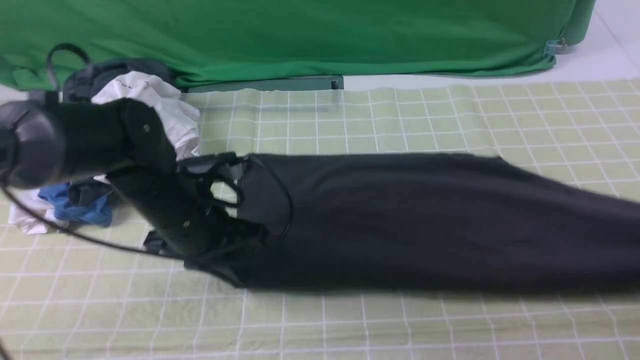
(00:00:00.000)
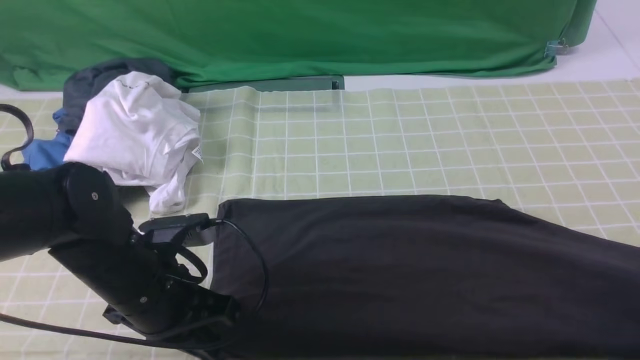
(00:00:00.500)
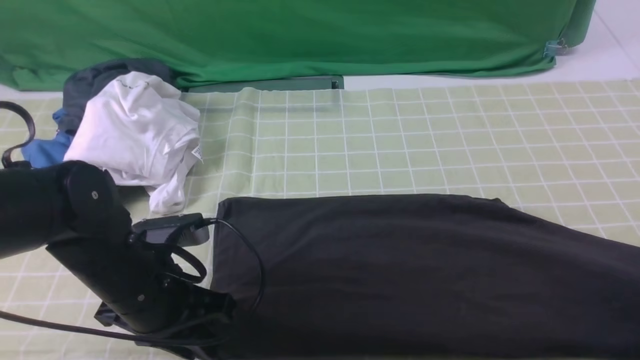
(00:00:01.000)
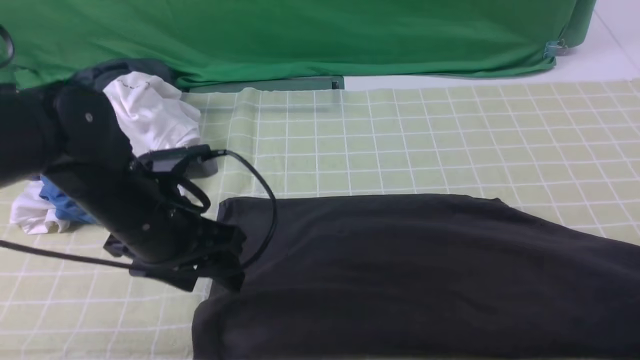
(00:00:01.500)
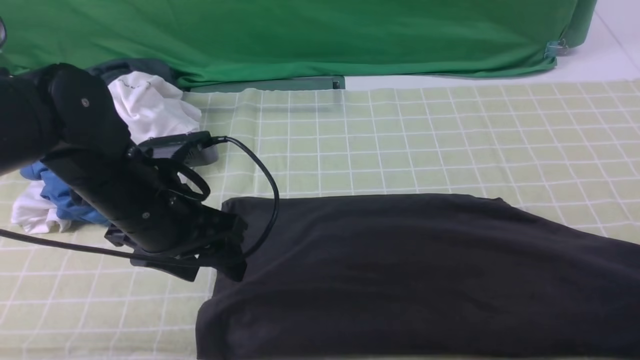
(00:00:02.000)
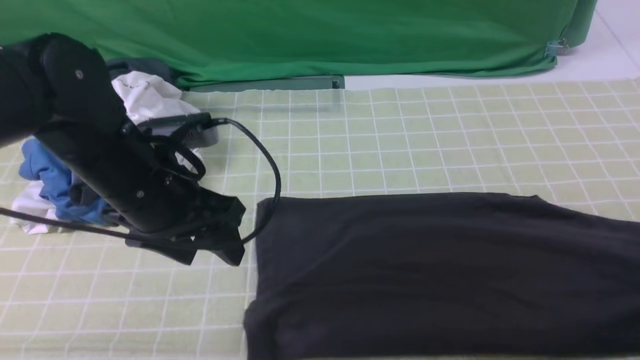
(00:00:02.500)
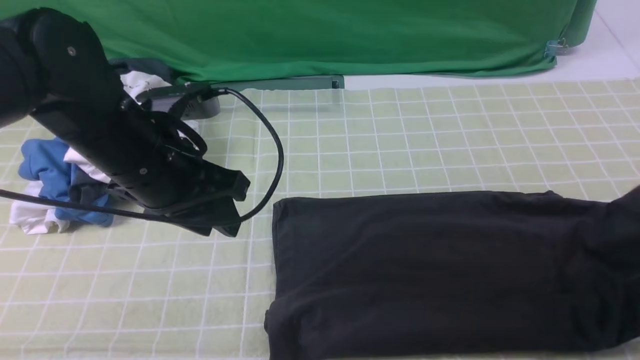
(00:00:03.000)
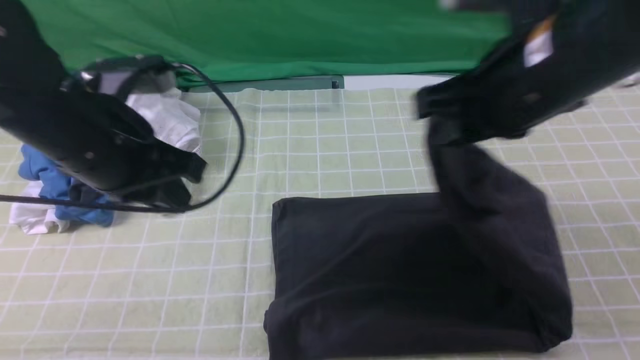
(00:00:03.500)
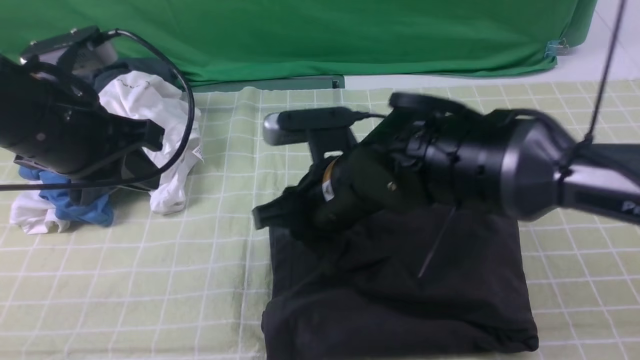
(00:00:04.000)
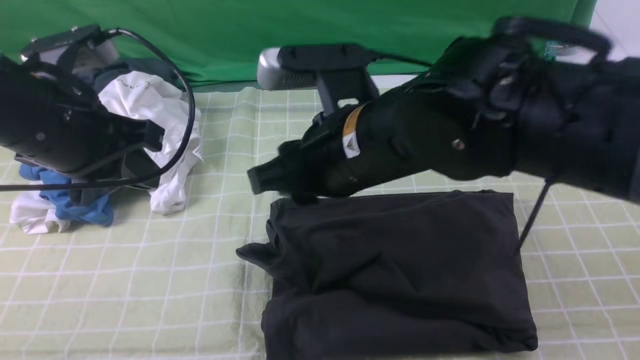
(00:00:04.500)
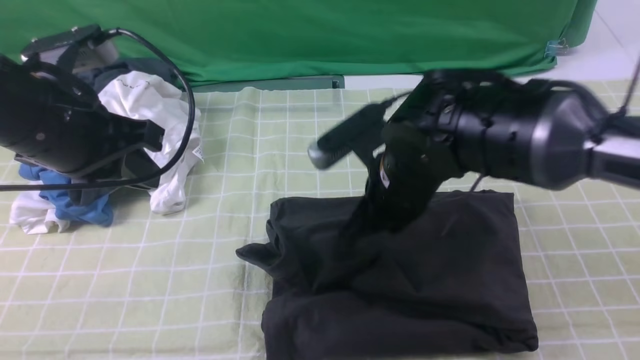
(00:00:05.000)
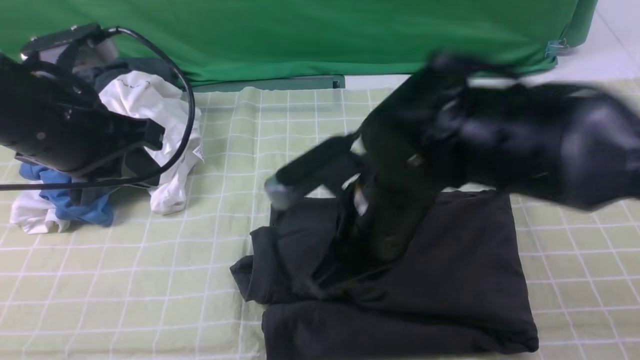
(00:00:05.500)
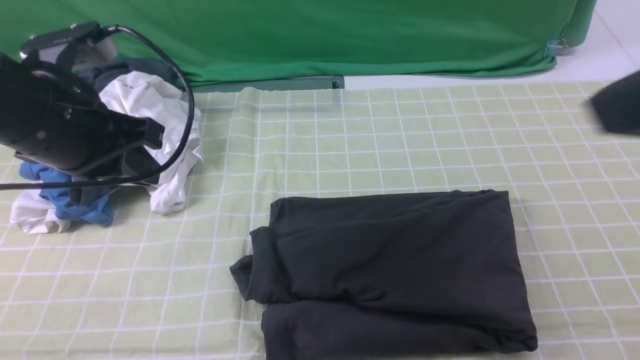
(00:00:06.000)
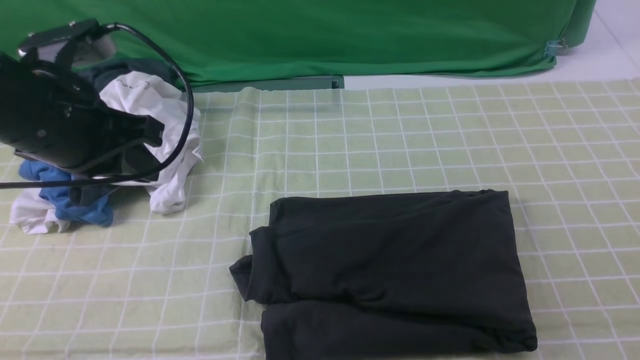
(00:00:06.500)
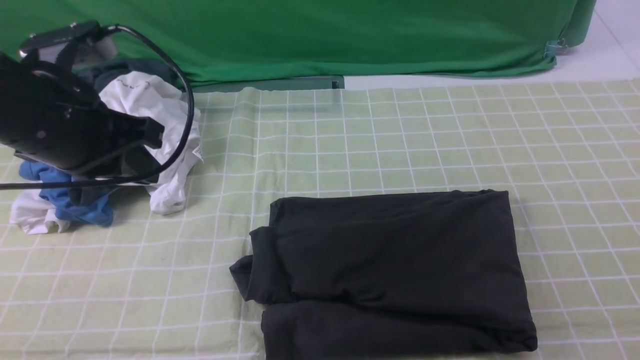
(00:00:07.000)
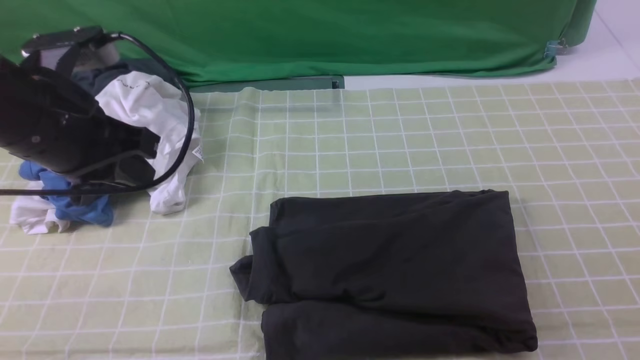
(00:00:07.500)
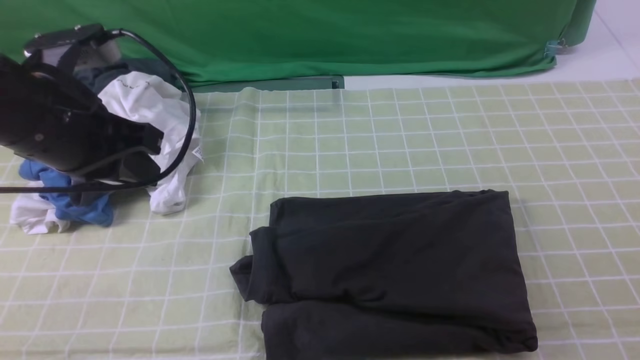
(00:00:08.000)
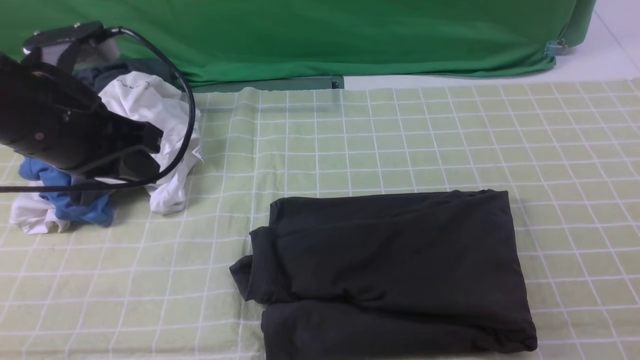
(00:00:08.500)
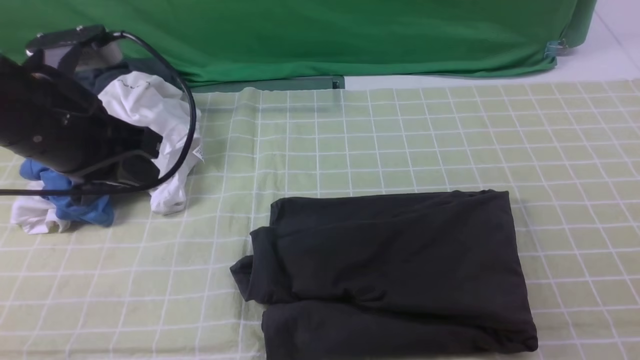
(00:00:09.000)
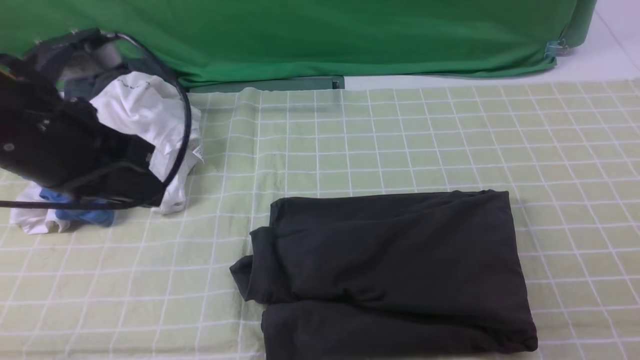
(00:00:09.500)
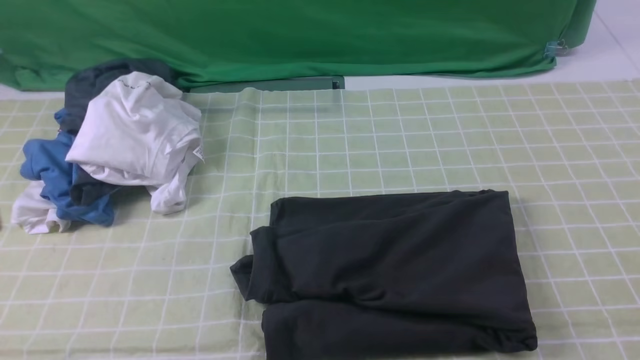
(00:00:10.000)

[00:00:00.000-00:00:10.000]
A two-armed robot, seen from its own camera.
Step, 00:00:00.000 to 00:00:02.000: use the right arm to clamp the right edge of the fabric.
Step, 00:00:02.500 to 00:00:04.000: use the right arm to drag the right edge of the fabric to the left and folds it over the left edge.
00:00:00.000 to 00:00:02.000: The right gripper moves downward, approximately 5 cm, and opens its fingers. The left gripper moves upward, some 5 cm, and opens.
00:00:02.000 to 00:00:04.000: The left gripper goes some 10 cm upward and to the left, and closes up. The right gripper is displaced to the left by approximately 50 cm.
00:00:04.000 to 00:00:06.000: The right gripper moves up and down over approximately 25 cm, changing direction 2 times, and closes.
00:00:06.000 to 00:00:08.000: The right gripper heads downward and to the right, covering approximately 15 cm.
00:00:08.000 to 00:00:10.000: The left gripper moves backward and upward, some 25 cm.

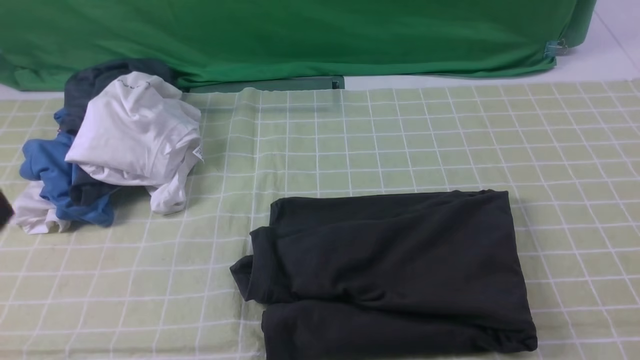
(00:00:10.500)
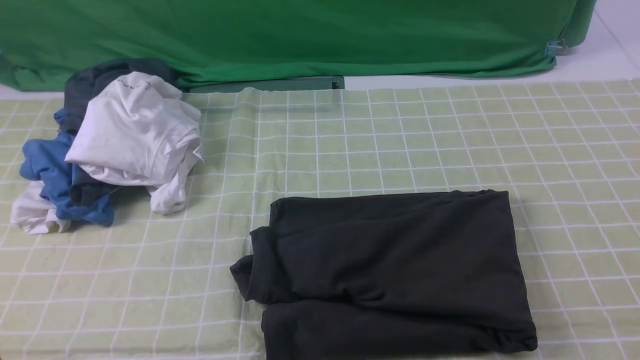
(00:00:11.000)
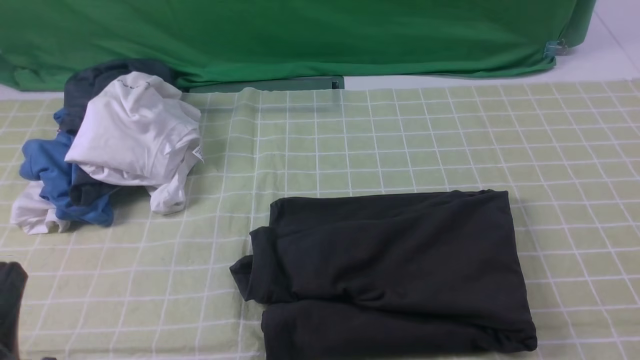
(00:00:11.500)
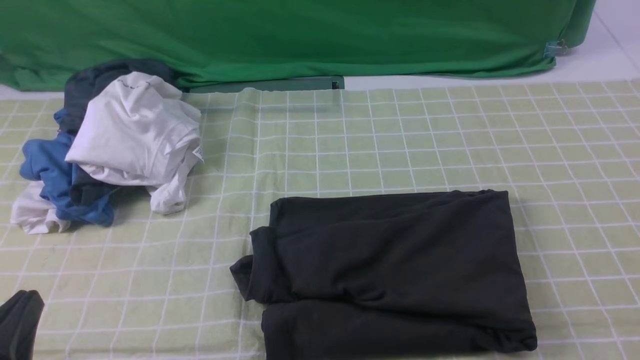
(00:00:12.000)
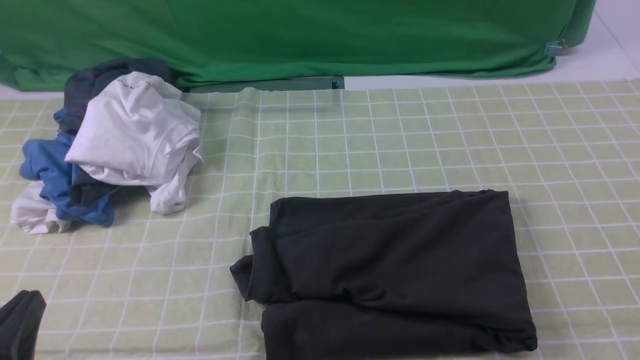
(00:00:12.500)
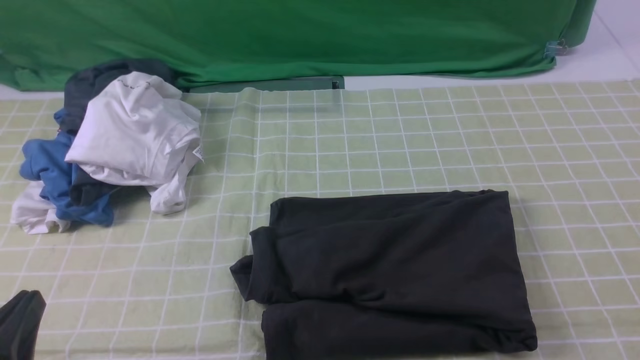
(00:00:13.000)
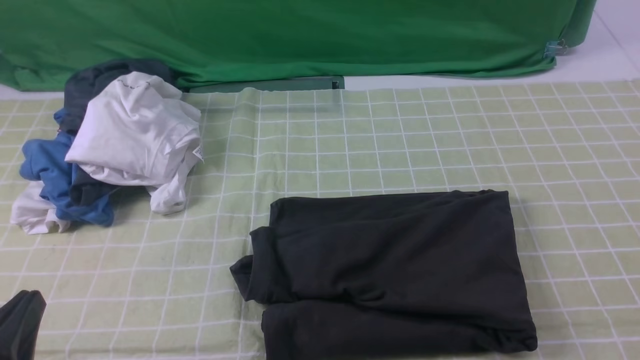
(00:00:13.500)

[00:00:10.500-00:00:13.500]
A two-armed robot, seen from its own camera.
00:00:10.500 to 00:00:12.000: The left gripper is displaced downward by roughly 15 cm.
00:00:12.000 to 00:00:13.500: Neither gripper changes place.
